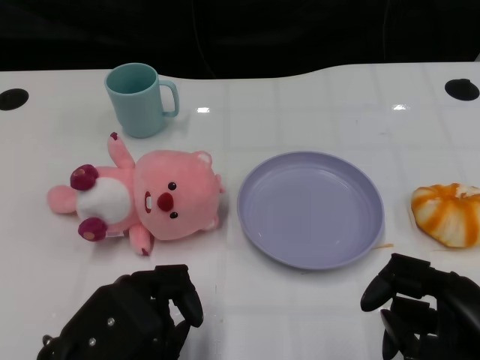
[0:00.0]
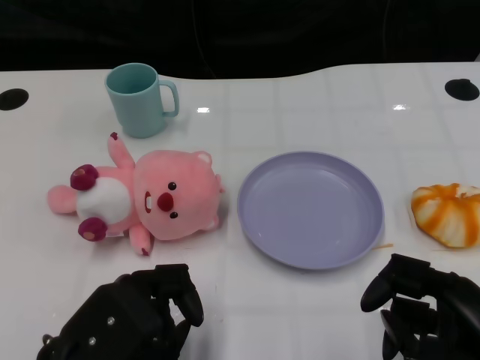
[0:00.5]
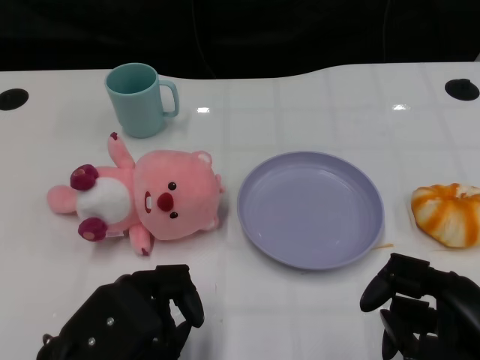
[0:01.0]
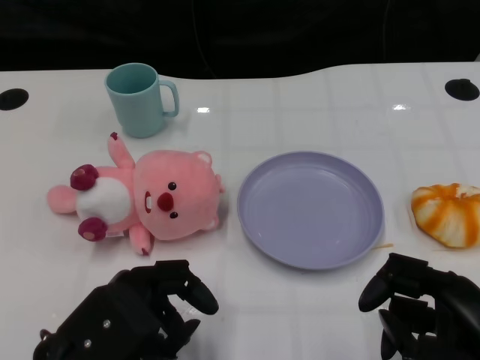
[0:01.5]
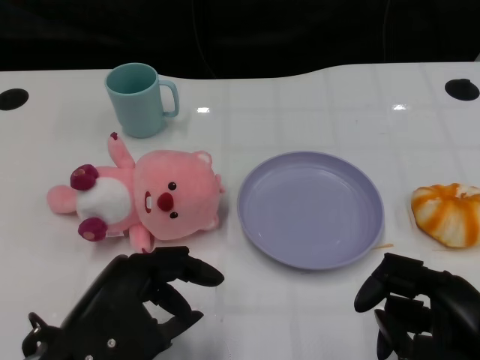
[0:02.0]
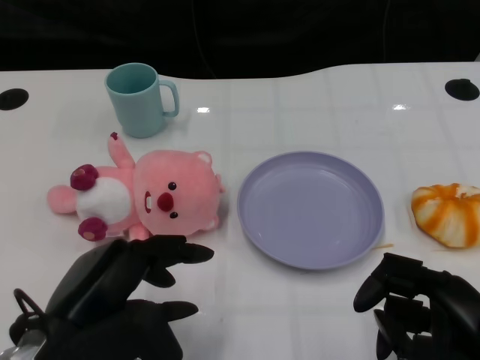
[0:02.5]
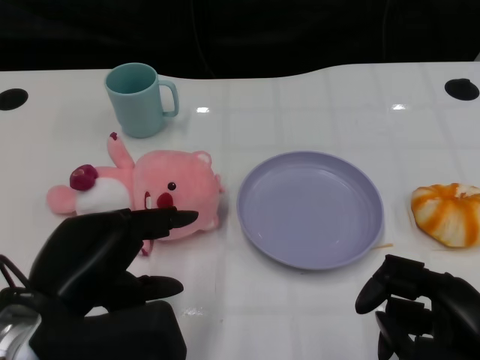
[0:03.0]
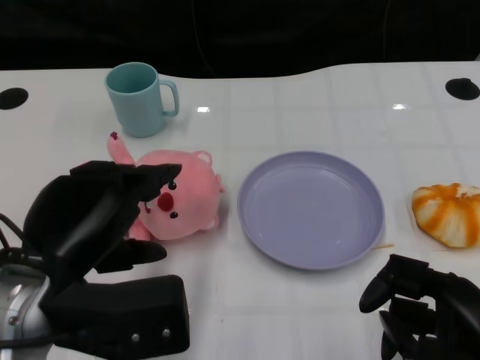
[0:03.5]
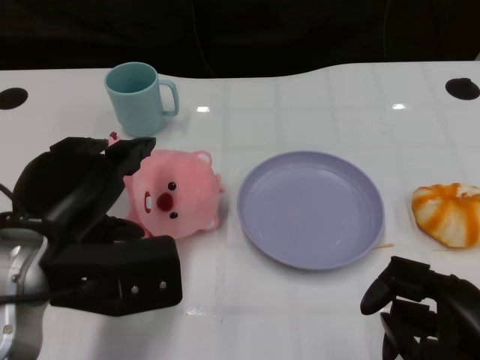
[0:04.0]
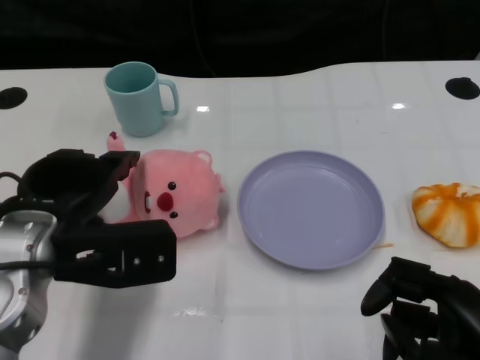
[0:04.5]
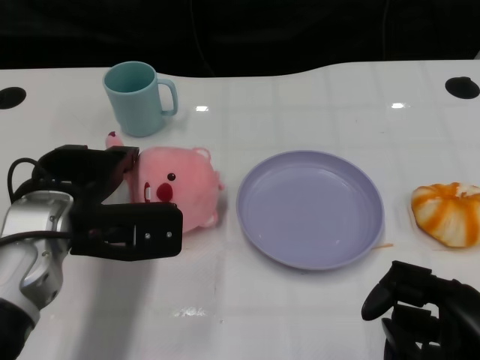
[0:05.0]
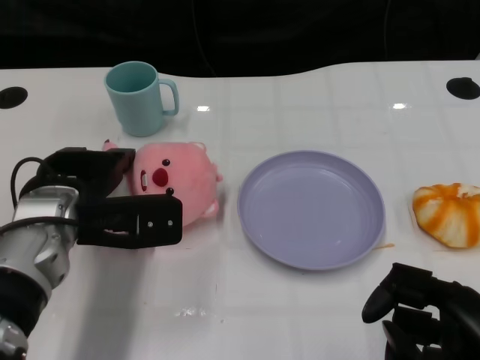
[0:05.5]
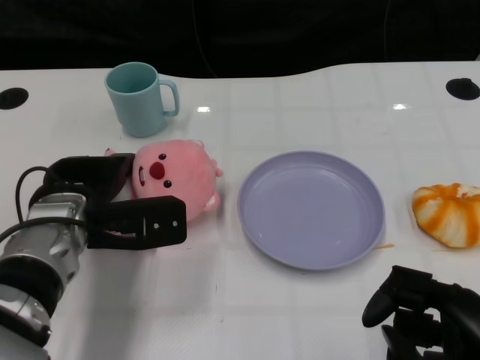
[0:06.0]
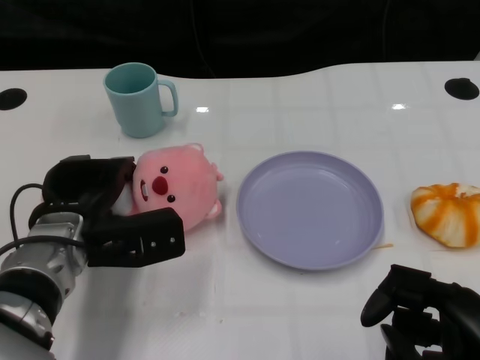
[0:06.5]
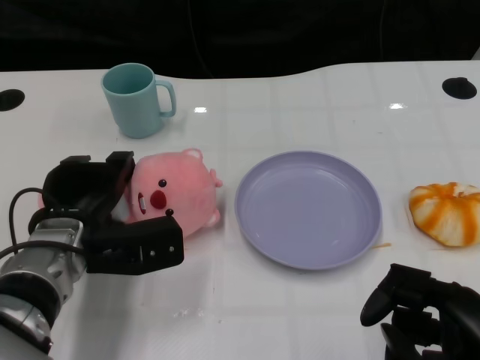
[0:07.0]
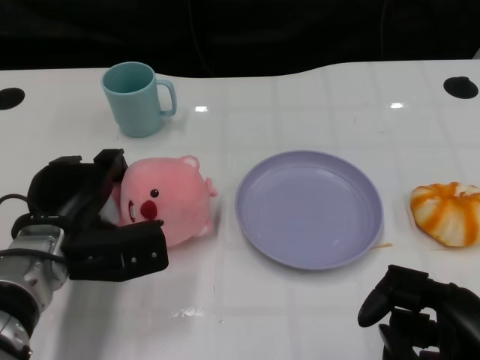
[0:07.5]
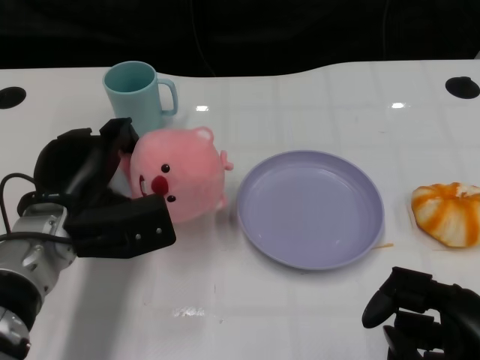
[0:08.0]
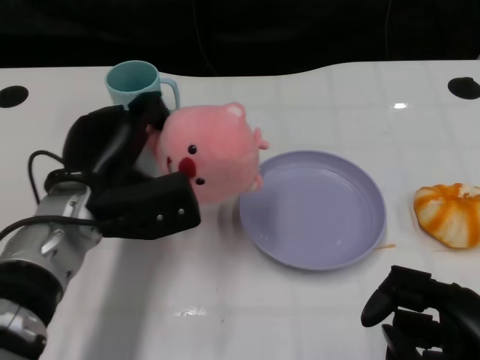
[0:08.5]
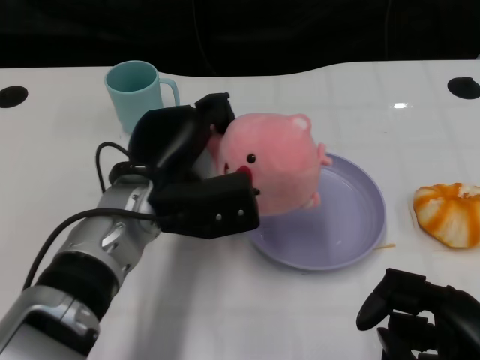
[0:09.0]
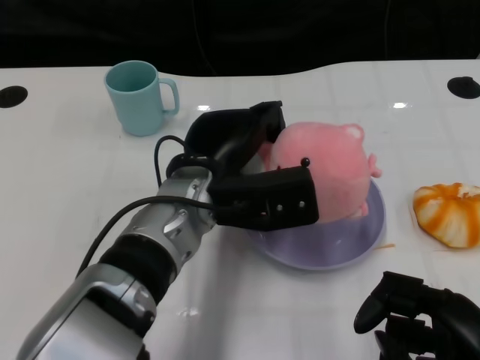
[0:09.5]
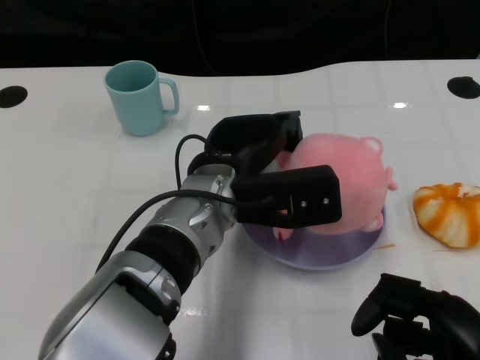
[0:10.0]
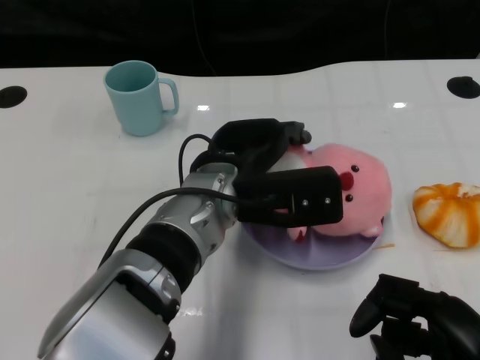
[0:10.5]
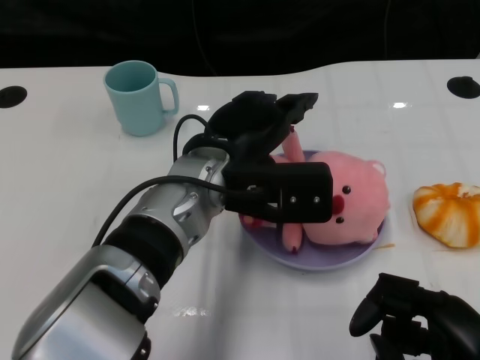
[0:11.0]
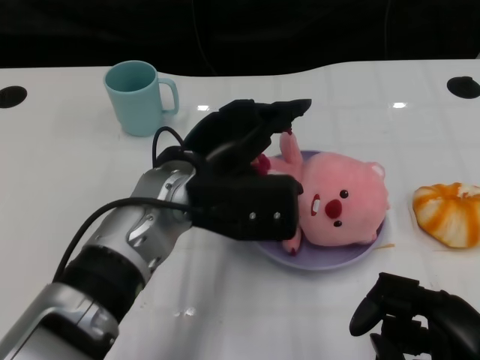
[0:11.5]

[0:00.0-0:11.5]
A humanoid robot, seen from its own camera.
Task of the whole recording: Pick up the doll on one side of the plate and place it into the plate.
Step, 0:01.5 to 0:07.5: Grasp the pink doll with the left gripper.
Step, 0:08.0 to 0:11.0: Place the pink doll into the plate with the left gripper.
0:02.0 to 0:04.0: The left hand heads forward and upward, covering about 10 cm.
0:04.0 to 0:06.0: The left hand travels forward and downward by approximately 10 cm.
0:06.0 to 0:07.5: There are only small adjustments of the hands.
0:07.5 to 0:09.5: The left hand travels to the right and upward by roughly 15 cm.

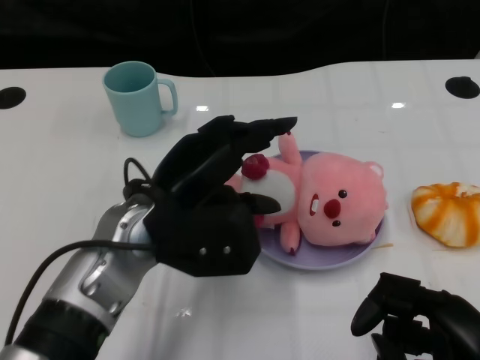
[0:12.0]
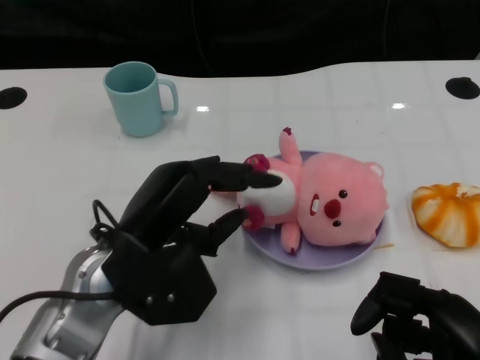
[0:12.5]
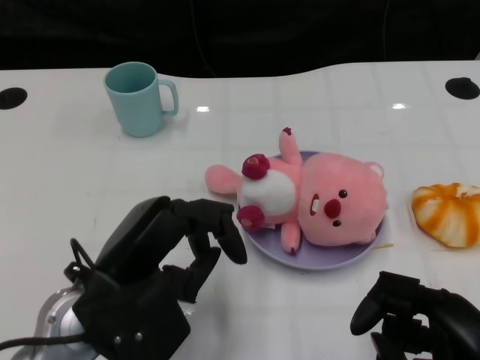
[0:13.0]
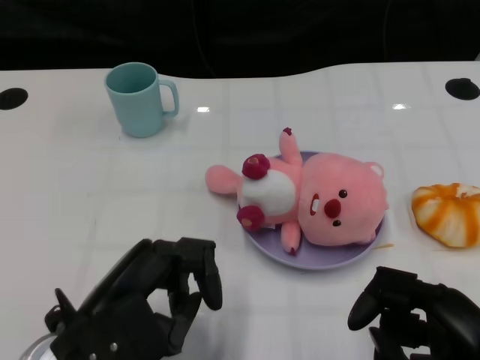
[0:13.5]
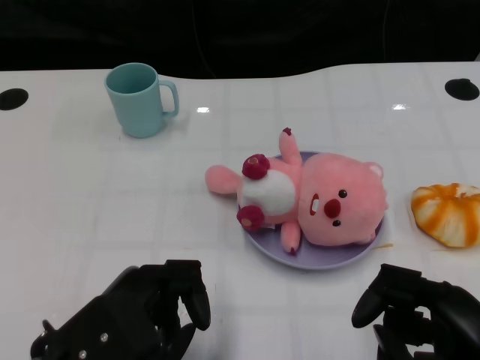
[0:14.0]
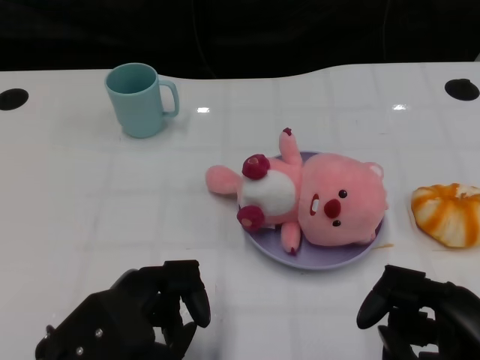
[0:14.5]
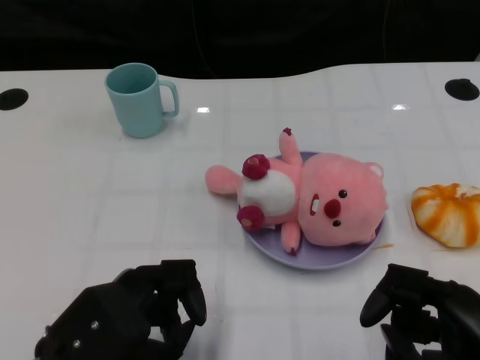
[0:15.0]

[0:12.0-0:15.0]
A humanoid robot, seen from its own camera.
Task of the whole recording: Pick up the doll on one side of the plate and place it into the plate.
0:12.0 to 0:13.5: The left hand travels backward and to the left by approximately 10 cm.
0:13.5 to 0:15.0: The hands make only small movements.

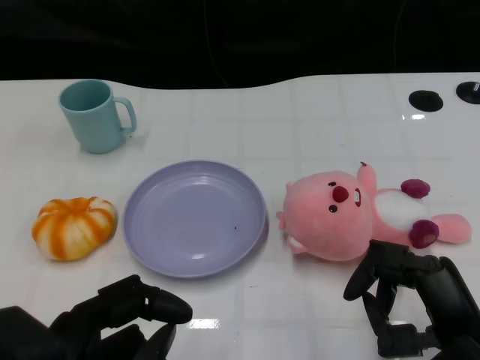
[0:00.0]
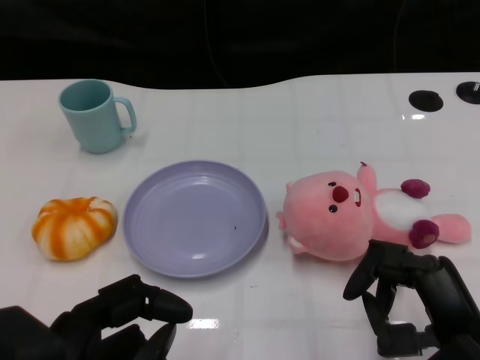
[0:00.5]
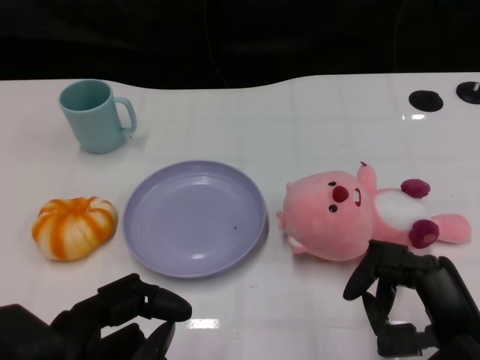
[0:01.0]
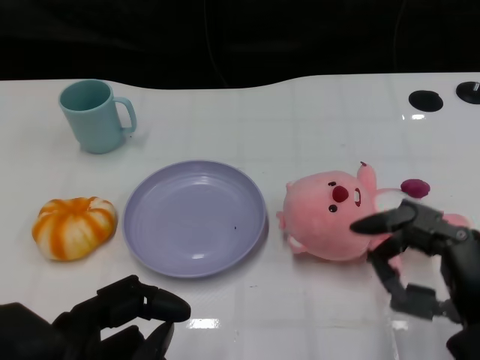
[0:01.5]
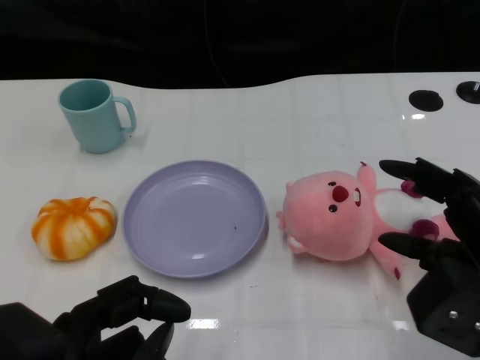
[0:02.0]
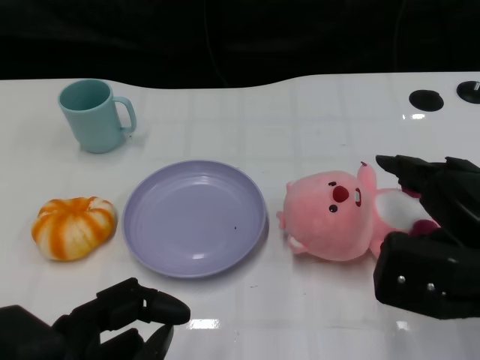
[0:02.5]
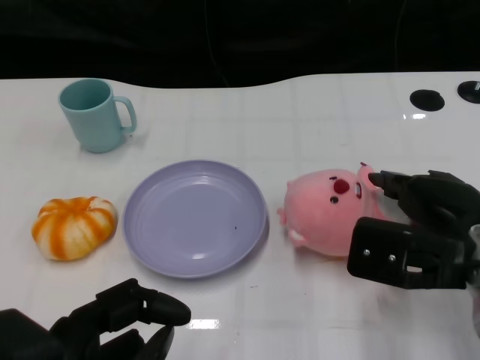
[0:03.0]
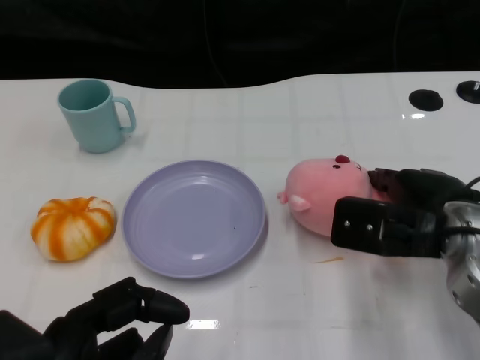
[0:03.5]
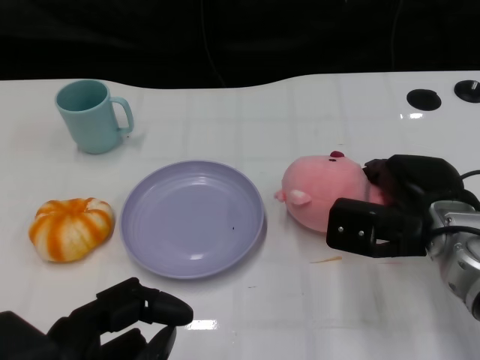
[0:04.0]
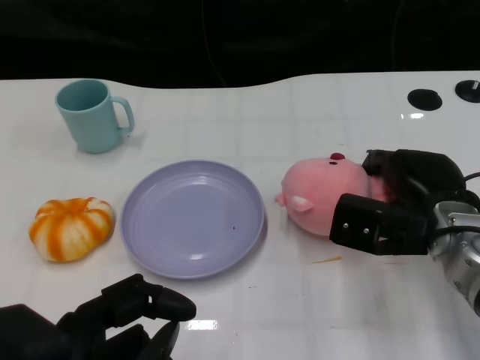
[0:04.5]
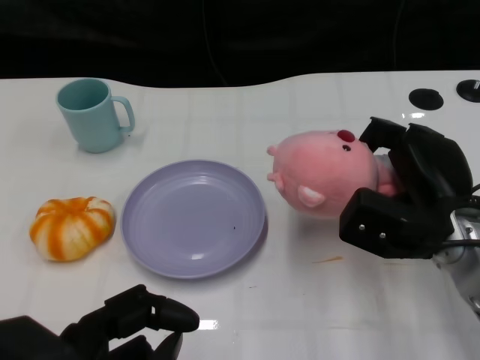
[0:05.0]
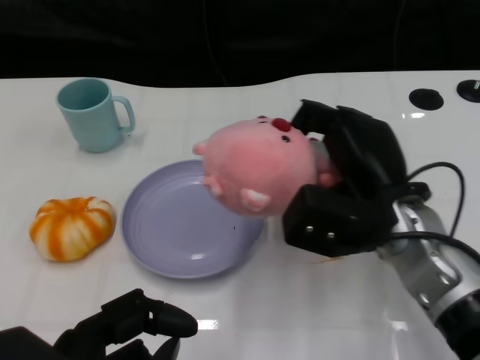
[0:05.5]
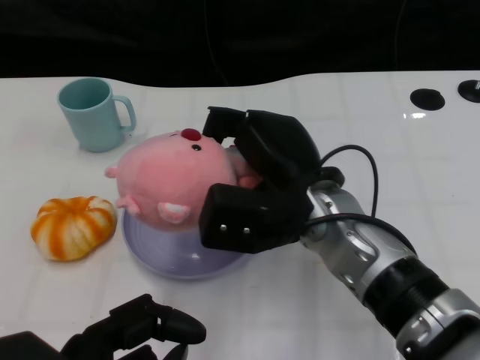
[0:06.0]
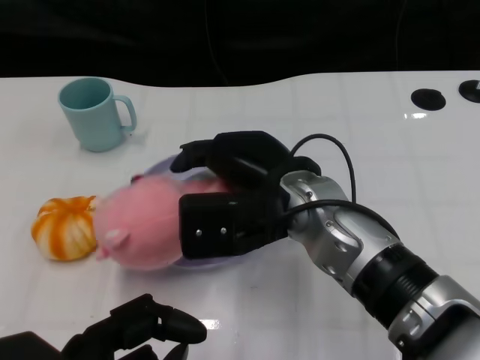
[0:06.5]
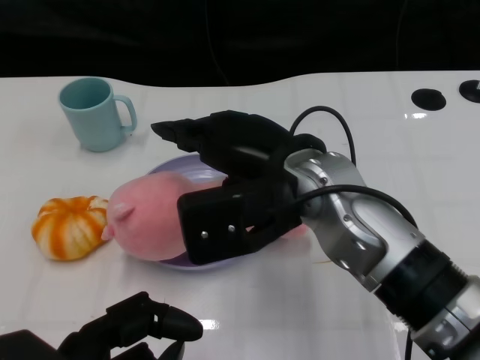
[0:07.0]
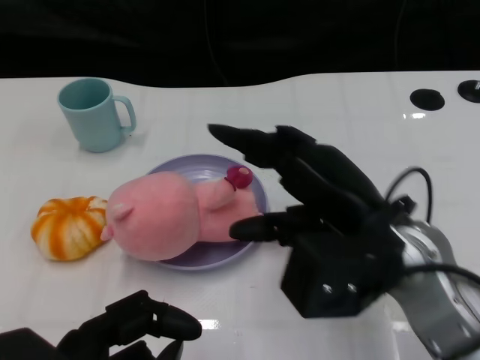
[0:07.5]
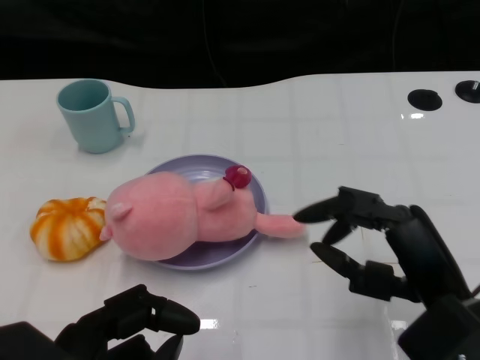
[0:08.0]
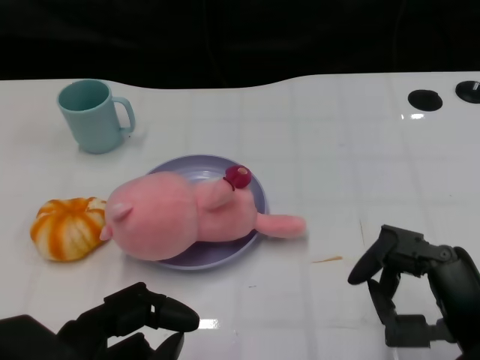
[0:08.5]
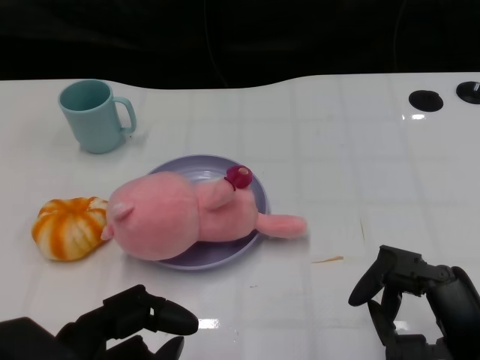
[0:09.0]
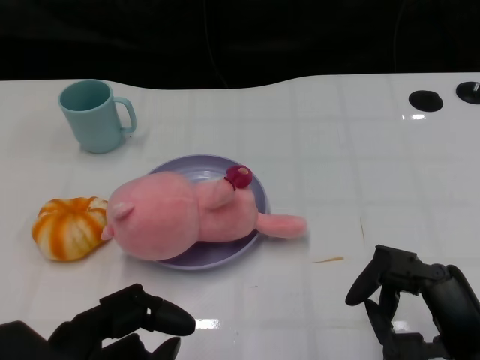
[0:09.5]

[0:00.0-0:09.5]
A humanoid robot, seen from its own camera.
Task of the whole recording: Pick up the doll on the other side of the plate and place it into the plate.
Step, 0:01.5 to 0:05.5: Grasp the pink doll with the right gripper.
Step, 0:06.0 to 0:07.0: Place the pink doll into the plate with the right gripper.
0:02.0 to 0:04.0: The right hand moves forward and downward, approximately 15 cm.
0:04.0 to 0:05.5: The right hand changes place by some 5 cm.
0:05.5 to 0:07.5: The right hand moves about 10 cm to the left and comes back.
0:07.5 to 0:09.5: The right hand shifts roughly 15 cm backward, downward and to the right.

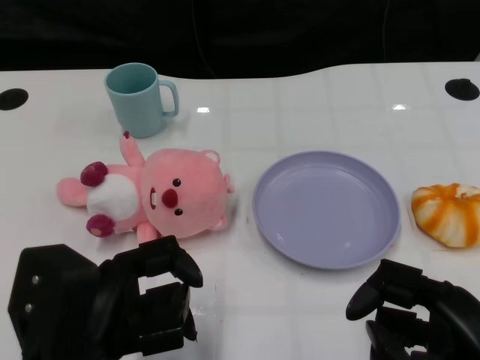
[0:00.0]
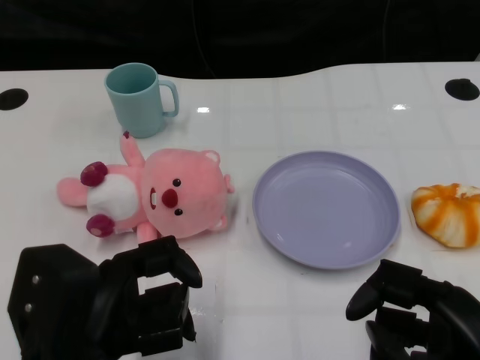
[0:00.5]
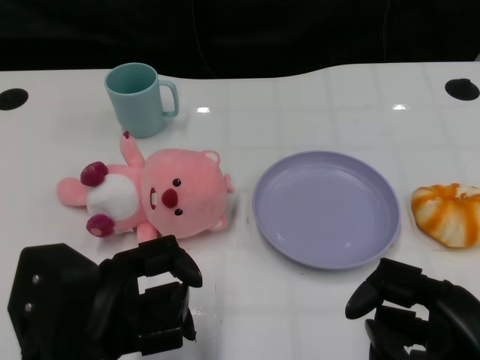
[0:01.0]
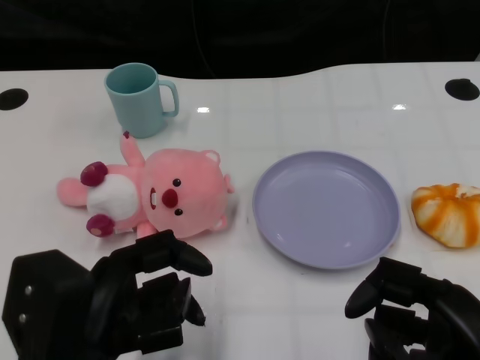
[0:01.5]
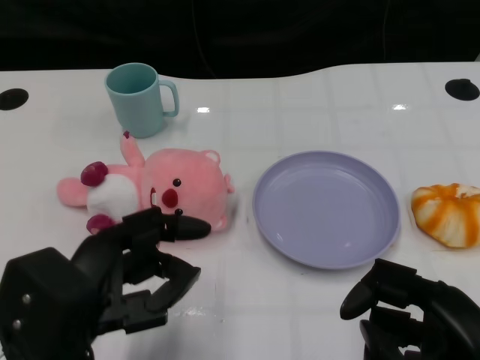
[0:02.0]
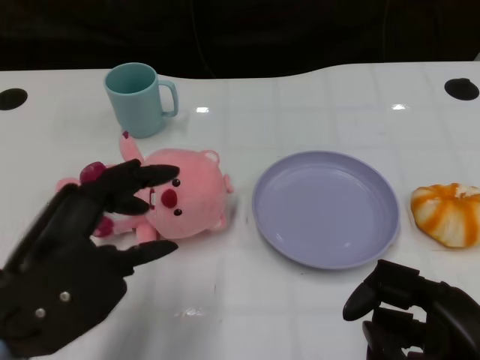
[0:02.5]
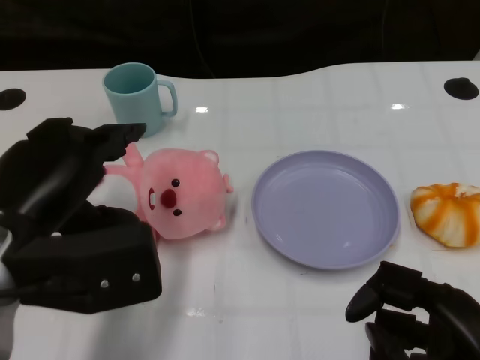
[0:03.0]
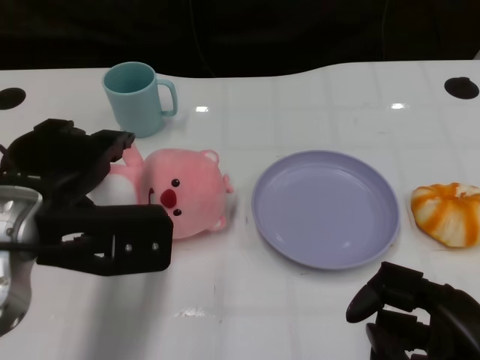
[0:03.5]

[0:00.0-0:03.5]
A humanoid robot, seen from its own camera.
Task of the whole recording: Pick up the doll on one side of the plate and place it into the plate.
0:02.0 to 0:03.5: The left hand travels forward and upward by about 10 cm.
